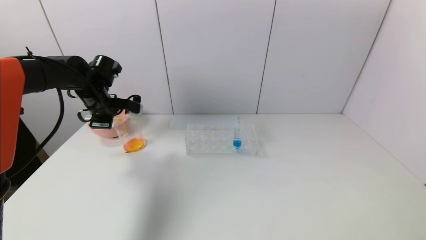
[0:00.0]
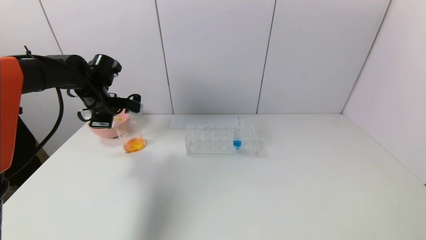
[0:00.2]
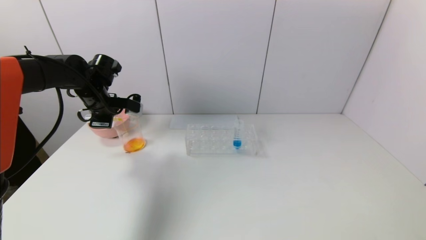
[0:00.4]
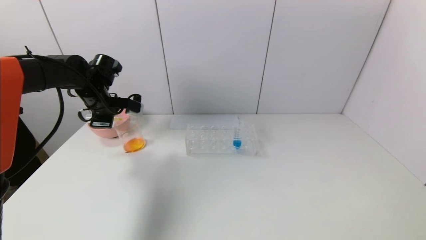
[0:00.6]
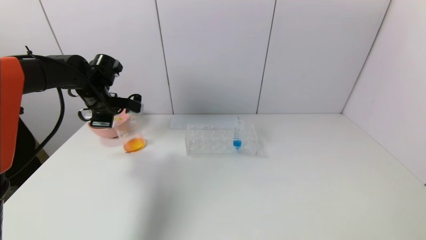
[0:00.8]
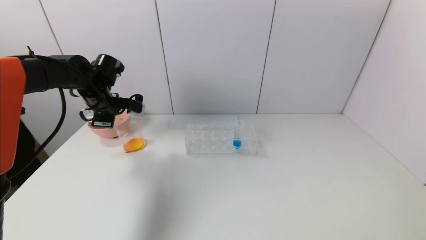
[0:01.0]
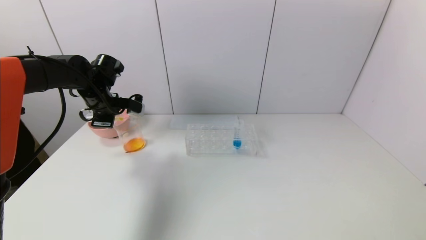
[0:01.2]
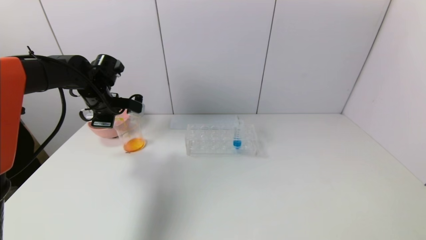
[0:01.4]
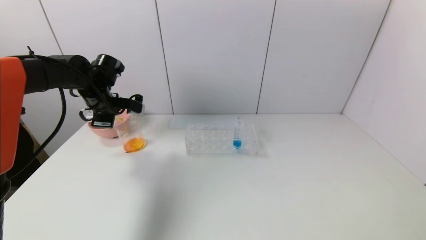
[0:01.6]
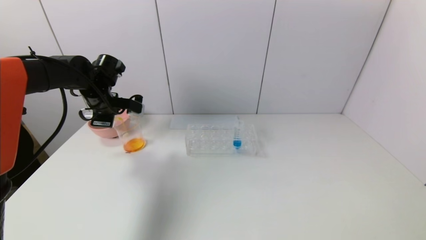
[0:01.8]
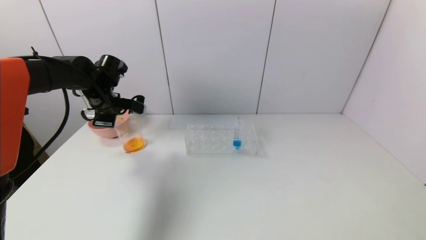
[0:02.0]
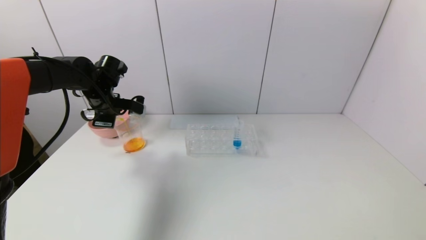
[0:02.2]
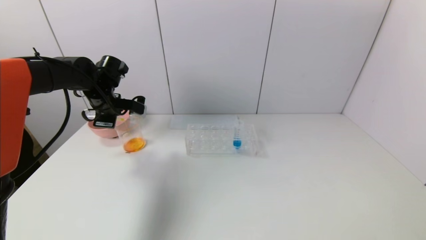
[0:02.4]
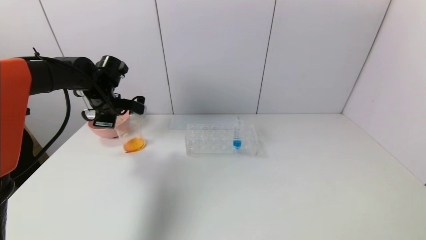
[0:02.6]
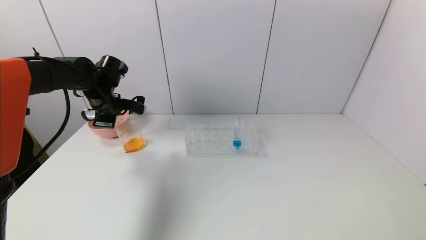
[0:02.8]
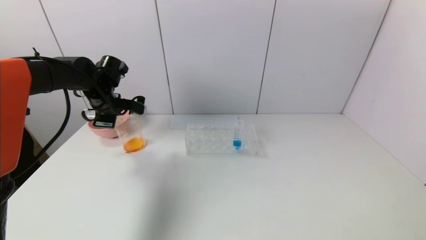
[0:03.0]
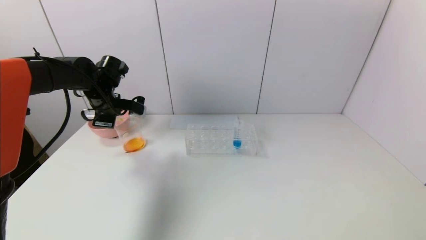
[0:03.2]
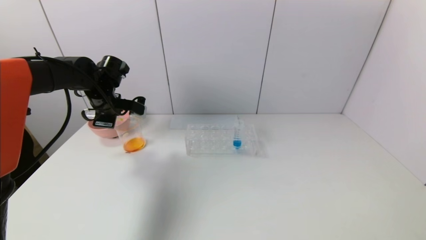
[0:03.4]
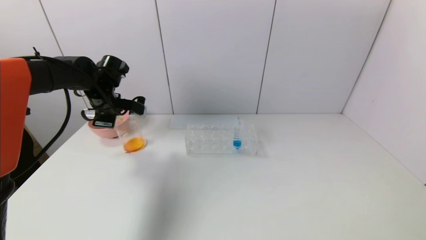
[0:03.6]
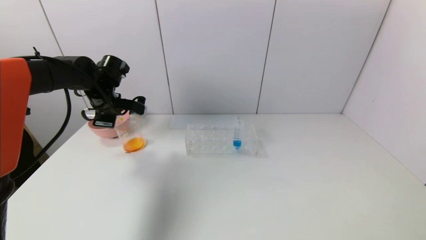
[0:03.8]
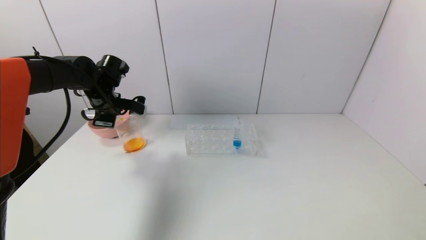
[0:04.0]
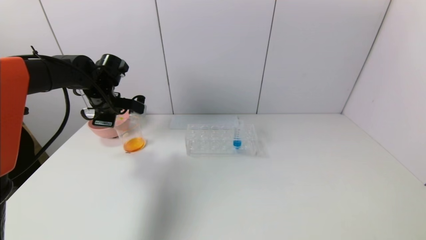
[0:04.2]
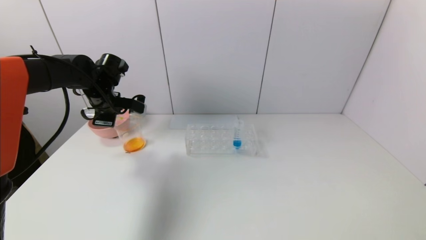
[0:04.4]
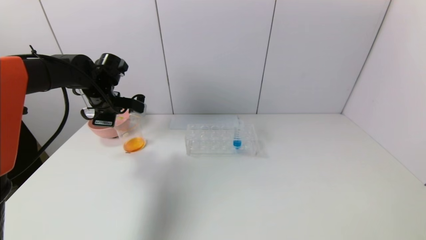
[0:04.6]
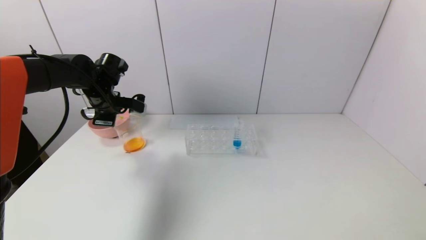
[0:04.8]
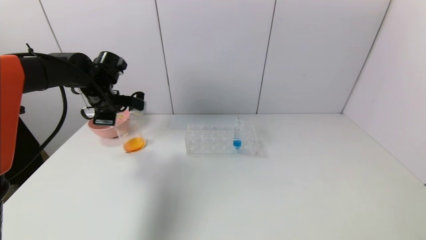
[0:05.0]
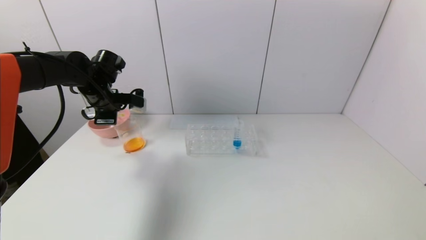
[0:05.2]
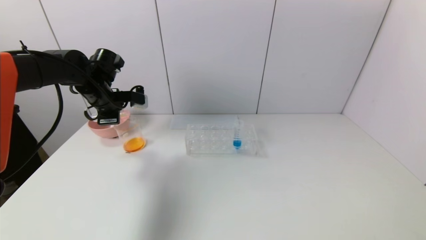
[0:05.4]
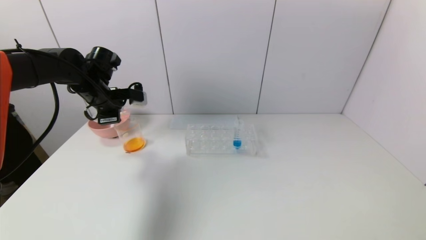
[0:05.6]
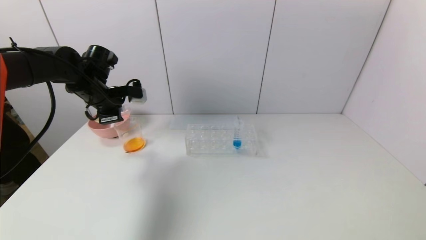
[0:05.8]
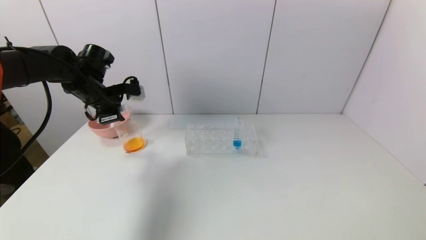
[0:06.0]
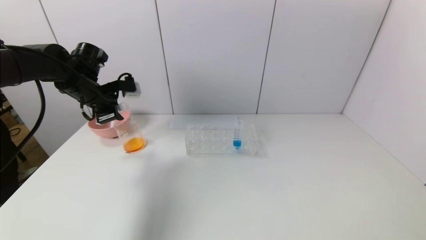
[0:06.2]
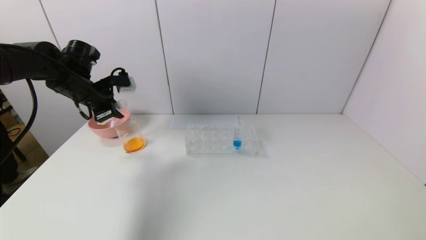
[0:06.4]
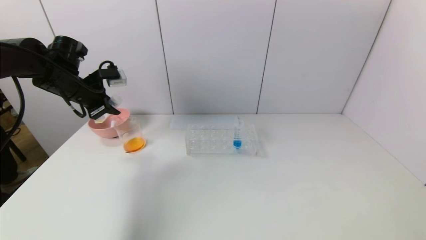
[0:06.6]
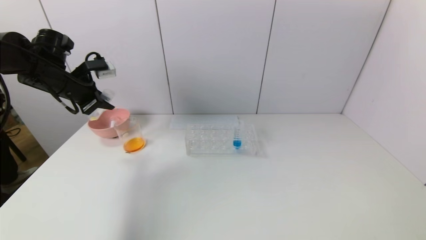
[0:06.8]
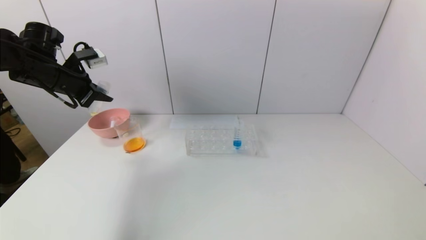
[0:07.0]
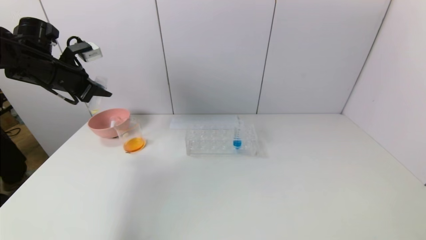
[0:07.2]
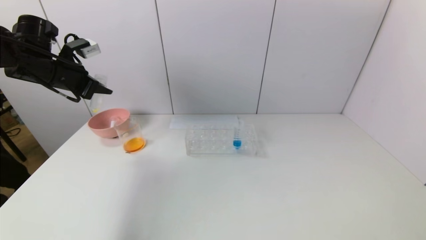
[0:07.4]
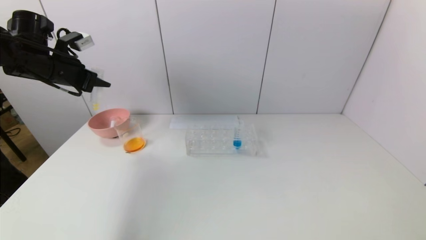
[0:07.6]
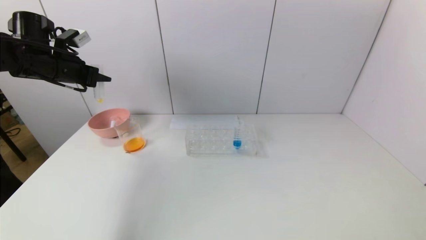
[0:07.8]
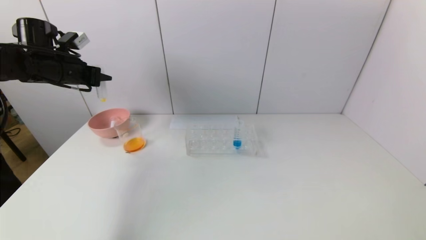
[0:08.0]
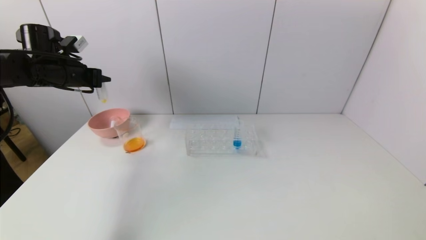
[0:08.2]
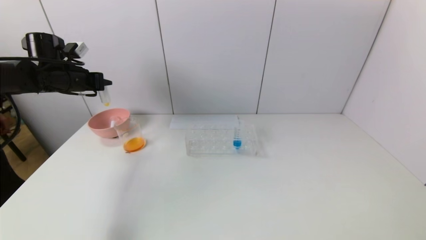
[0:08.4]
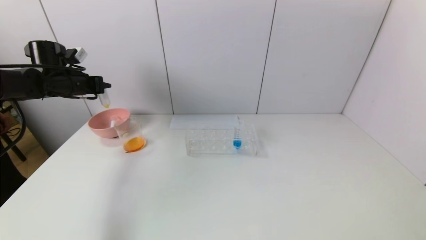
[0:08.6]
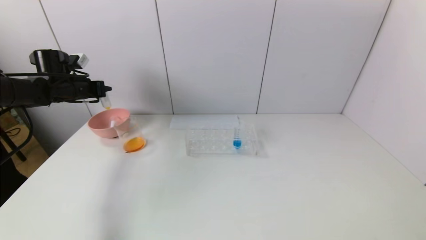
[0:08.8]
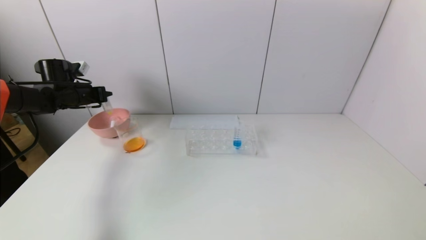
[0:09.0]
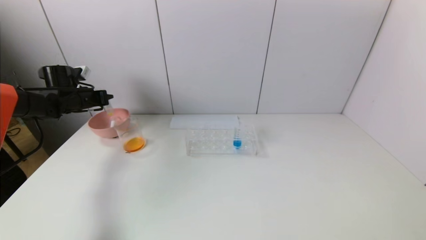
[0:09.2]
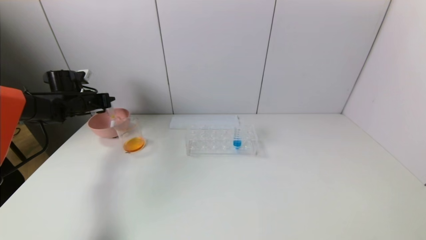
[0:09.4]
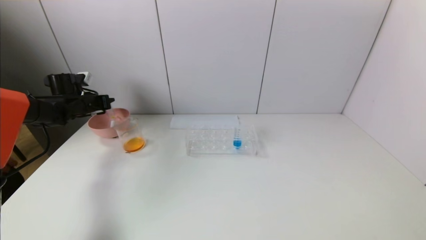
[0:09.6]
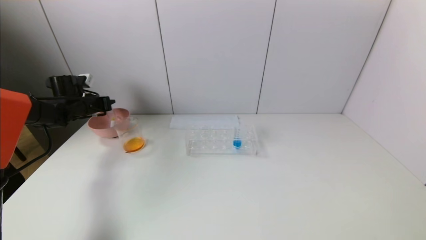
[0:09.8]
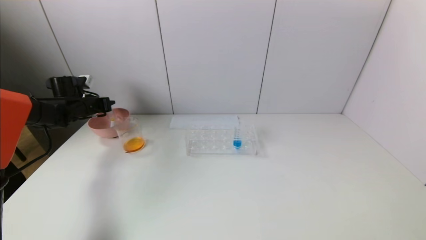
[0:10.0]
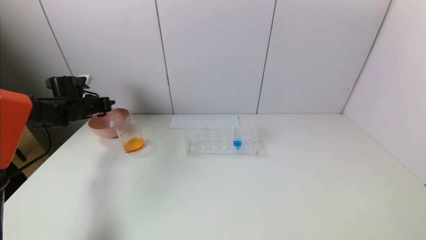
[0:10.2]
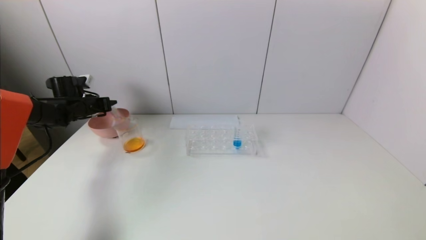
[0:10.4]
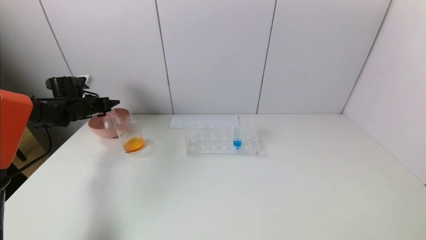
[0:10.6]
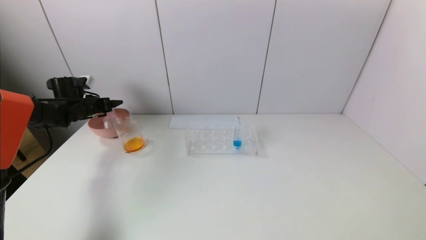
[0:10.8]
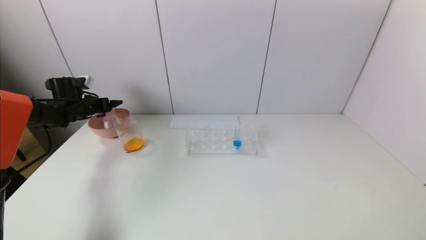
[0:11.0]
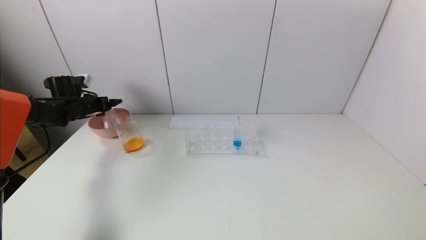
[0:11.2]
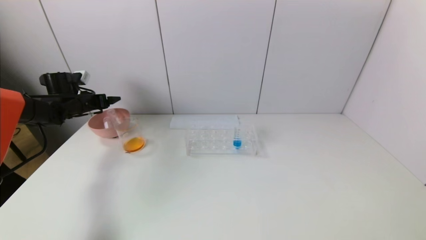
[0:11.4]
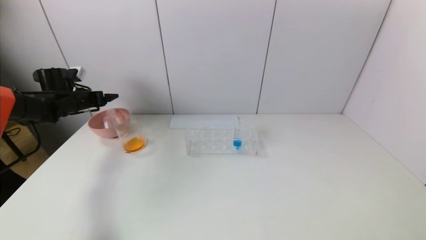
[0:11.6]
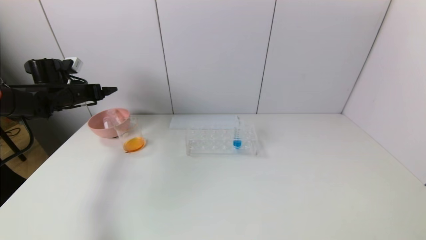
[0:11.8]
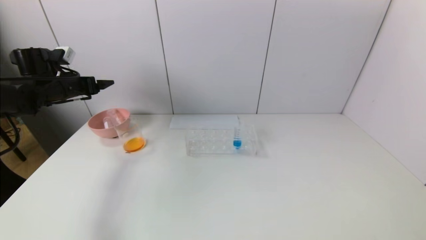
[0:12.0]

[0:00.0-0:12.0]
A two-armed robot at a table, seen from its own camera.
Task of the whole recording: pick up the test tube with yellow pigment and the test tube with red pigment by grippers and pour them into the beaker.
Step, 0:00.0 to 0:04.2: Pour the yellow reagent into the graduated cylinder with the left gripper.
Step, 0:04.4 to 0:10.6: Place the test tube into the pink bowl with the left gripper.
0:00.0 to 0:03.0: Neither gripper changes place.
0:03.0 to 0:04.4: Both grippers stay about where they are.
0:06.0 to 0:07.6: The left gripper heads to the left and upward, covering roughly 10 cm.
0:07.6 to 0:09.0: The left gripper heads downward and forward, covering some 15 cm.
0:09.0 to 0:10.4: The left gripper moves downward, about 5 cm.
0:10.4 to 0:12.0: The left gripper travels upward and backward by about 10 cm, and opens up.

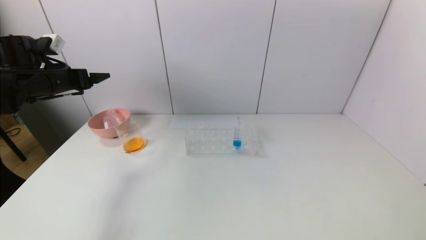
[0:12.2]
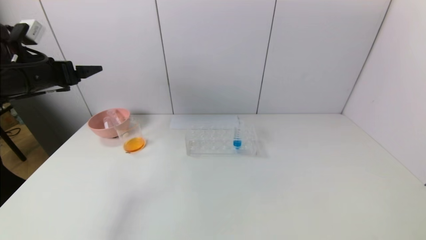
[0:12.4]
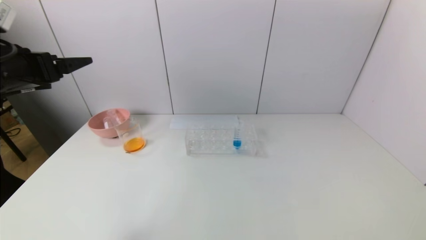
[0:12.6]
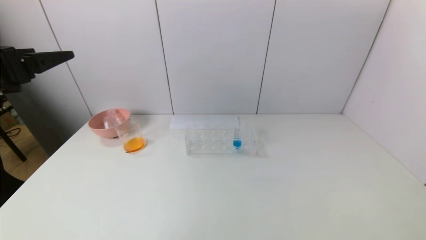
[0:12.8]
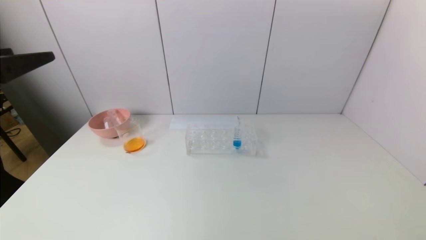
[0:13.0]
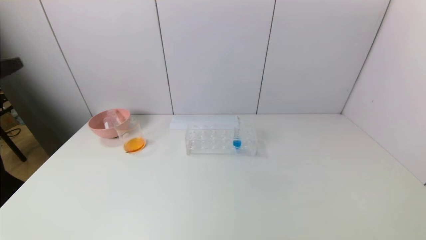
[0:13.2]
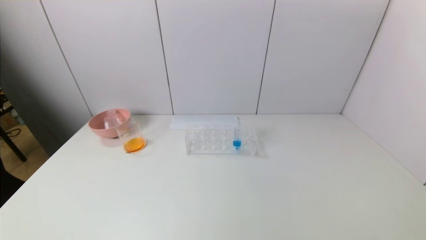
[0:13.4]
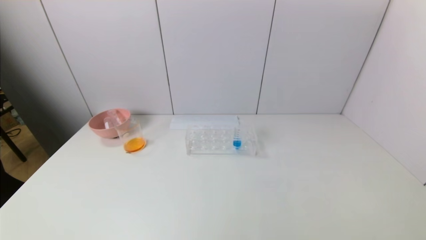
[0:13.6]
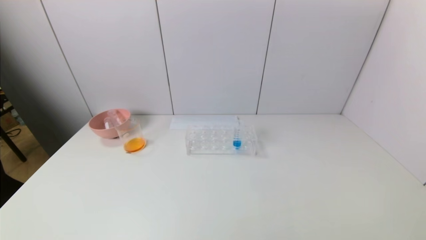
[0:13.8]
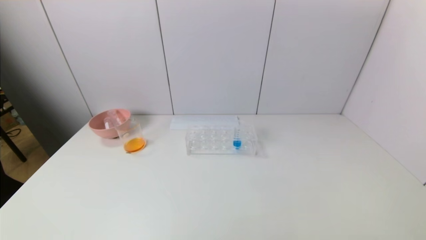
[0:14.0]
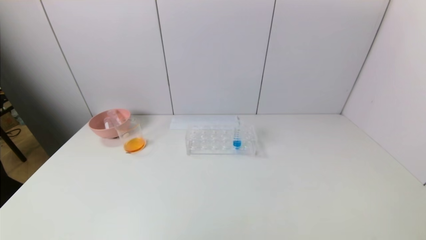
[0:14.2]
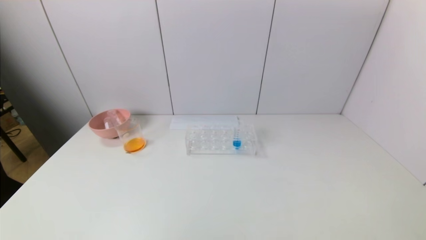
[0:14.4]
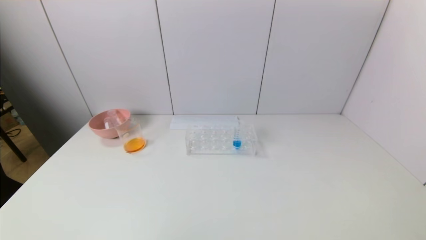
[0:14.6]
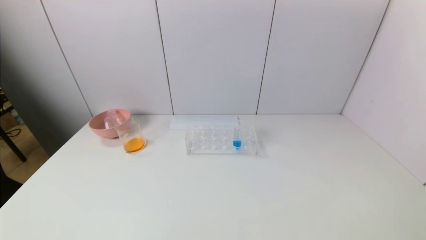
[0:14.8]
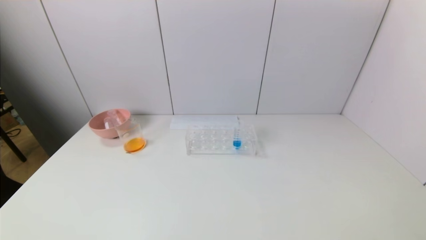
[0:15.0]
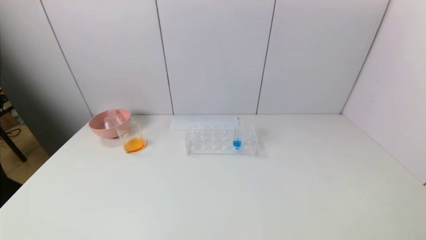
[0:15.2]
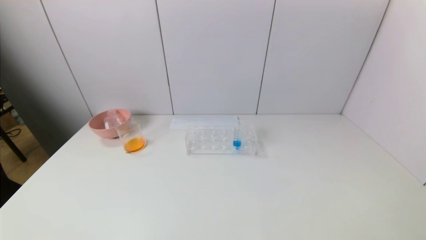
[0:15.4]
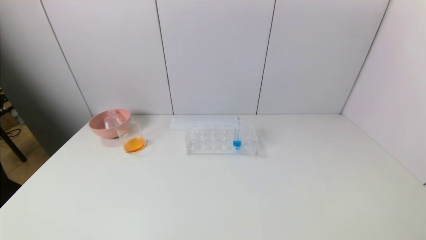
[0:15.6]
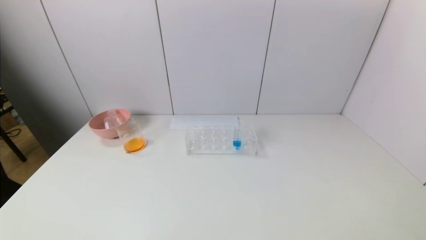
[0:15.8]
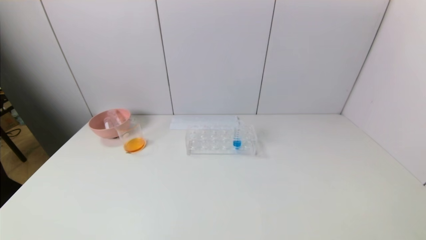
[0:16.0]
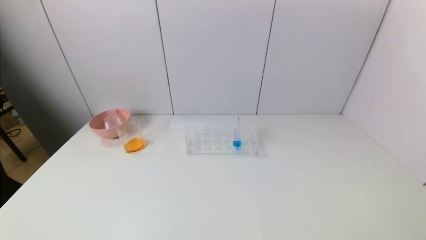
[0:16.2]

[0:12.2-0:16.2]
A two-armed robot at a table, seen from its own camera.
Task of the whole recording: pick up the test tube with yellow pigment and the test tube with red pigment by grippers and pour them into the beaker.
0:12.2 to 0:13.6: The left gripper shifts approximately 40 cm backward.
